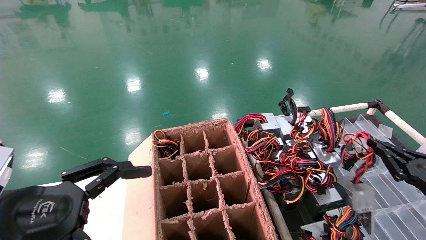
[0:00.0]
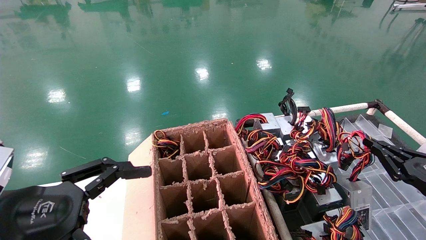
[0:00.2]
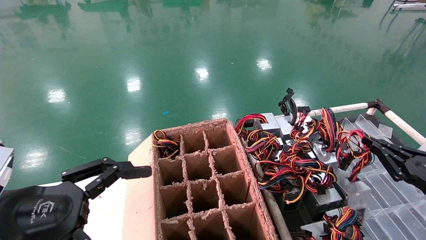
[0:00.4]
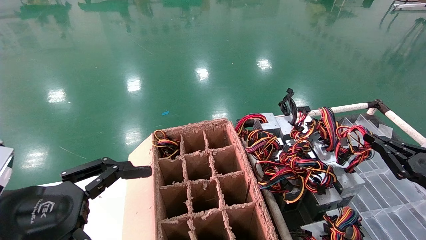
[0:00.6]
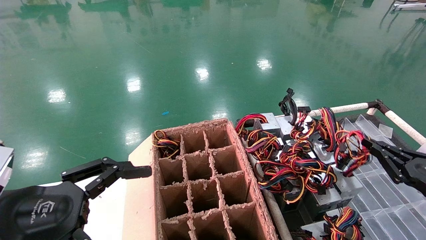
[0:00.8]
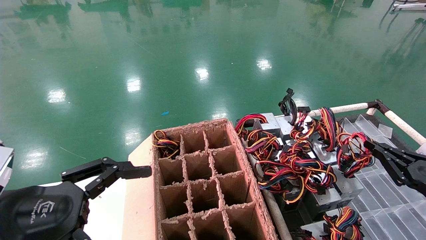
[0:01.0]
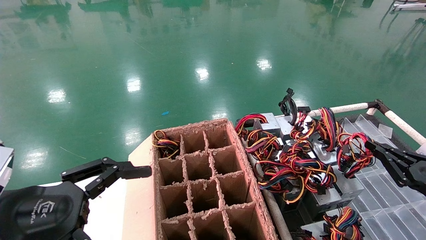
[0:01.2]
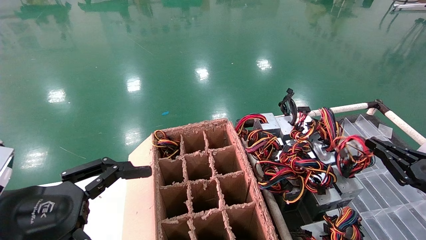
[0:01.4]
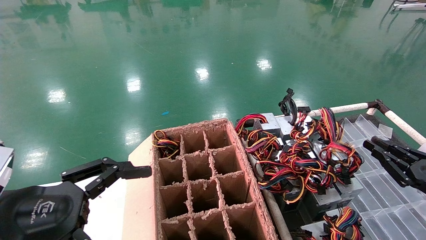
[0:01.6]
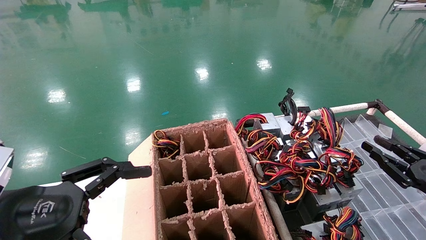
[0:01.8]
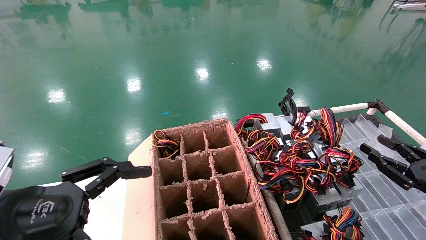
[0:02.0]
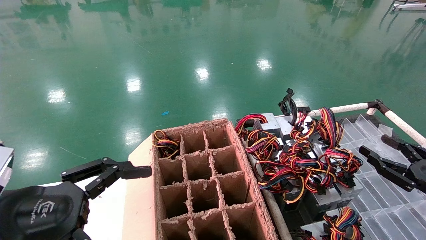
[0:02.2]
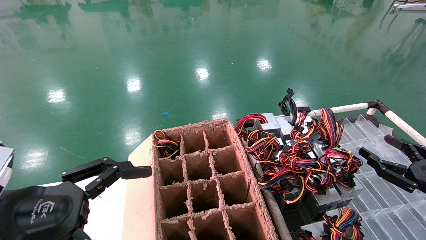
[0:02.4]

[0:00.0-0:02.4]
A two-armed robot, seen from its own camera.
0:00.0 to 0:01.2: The grippers stay close to where they were, moving slightly.
0:01.2 to 0:02.4: The right gripper opens.
